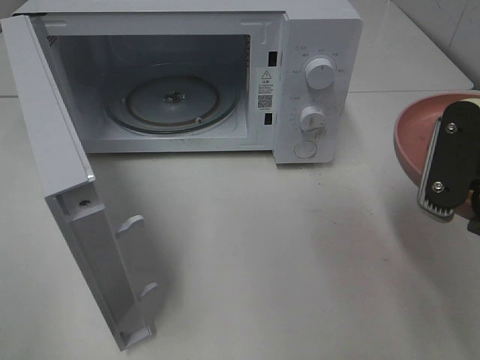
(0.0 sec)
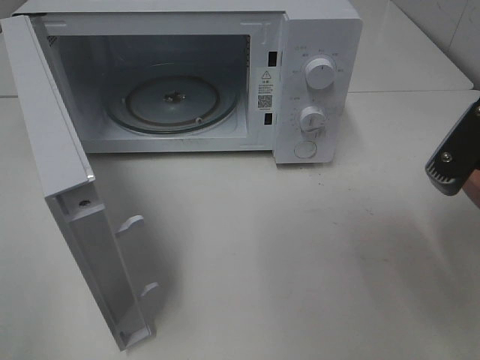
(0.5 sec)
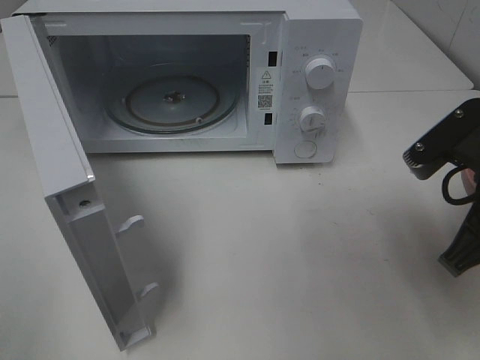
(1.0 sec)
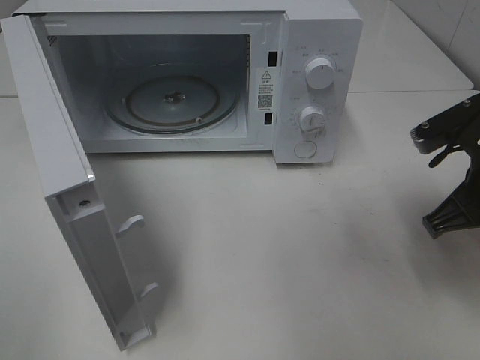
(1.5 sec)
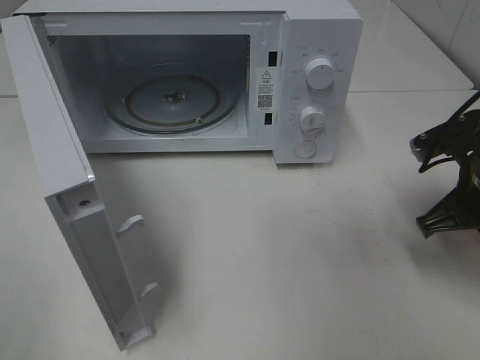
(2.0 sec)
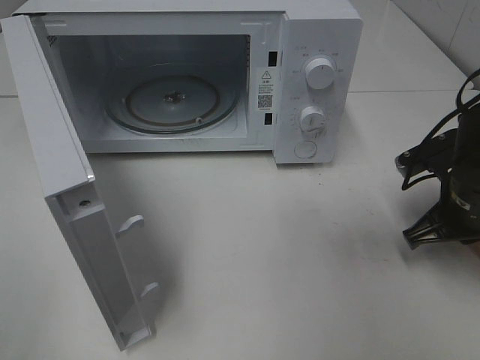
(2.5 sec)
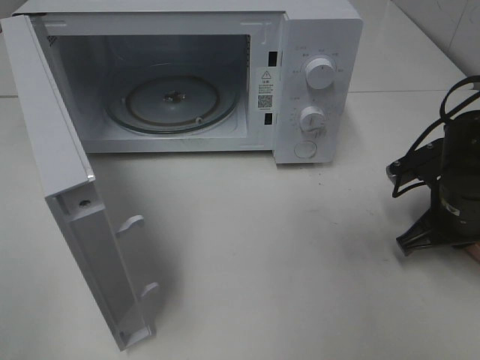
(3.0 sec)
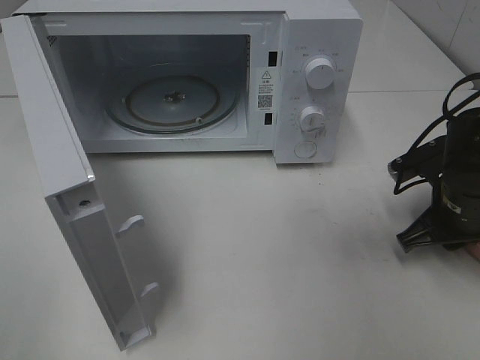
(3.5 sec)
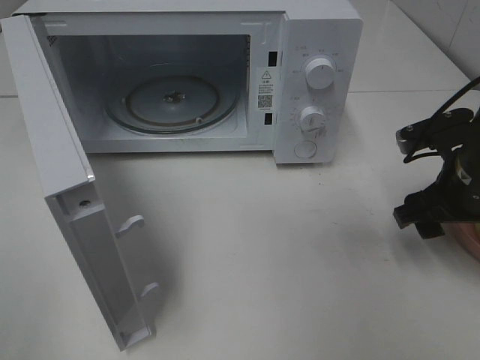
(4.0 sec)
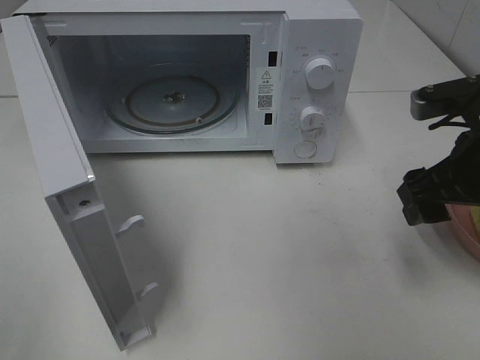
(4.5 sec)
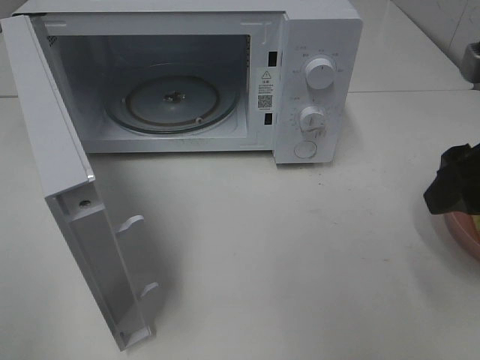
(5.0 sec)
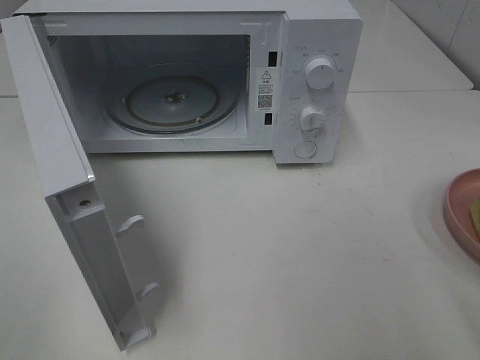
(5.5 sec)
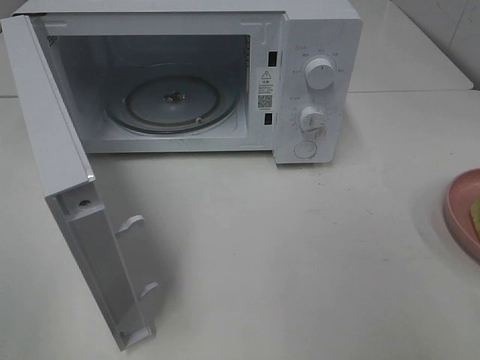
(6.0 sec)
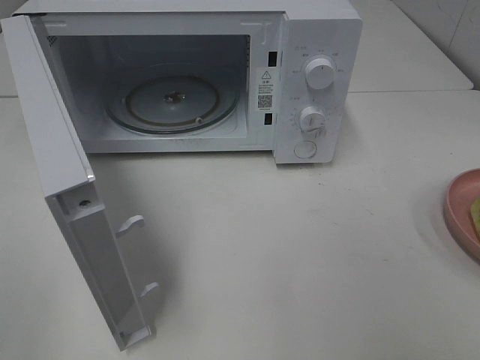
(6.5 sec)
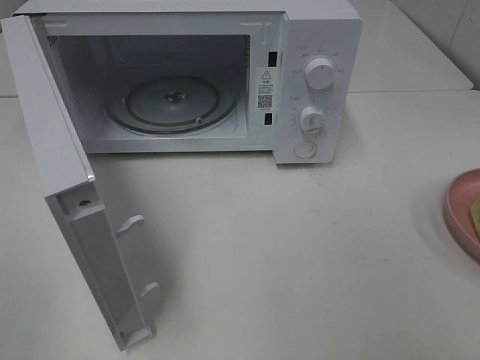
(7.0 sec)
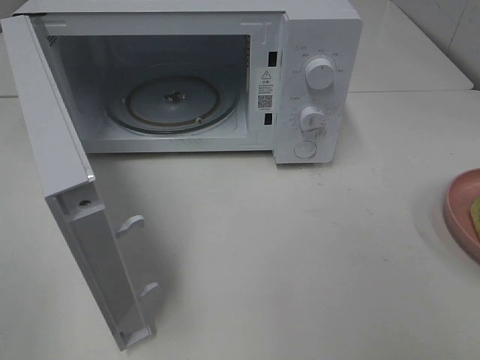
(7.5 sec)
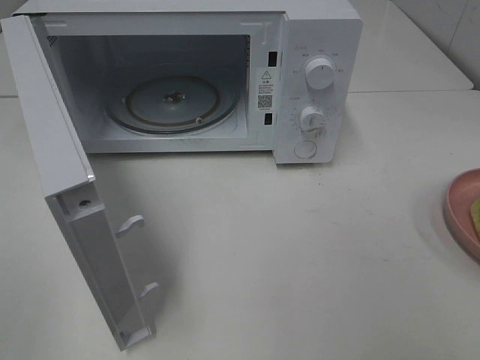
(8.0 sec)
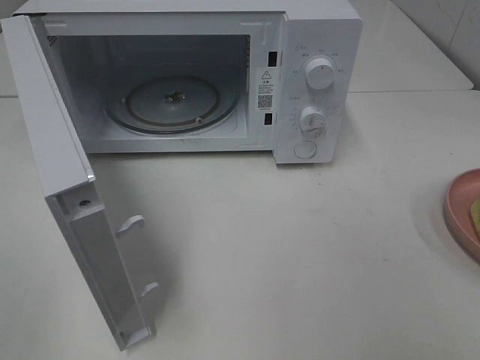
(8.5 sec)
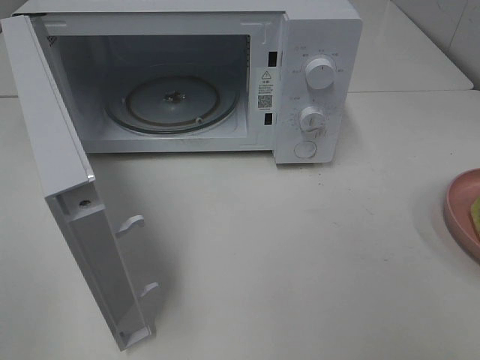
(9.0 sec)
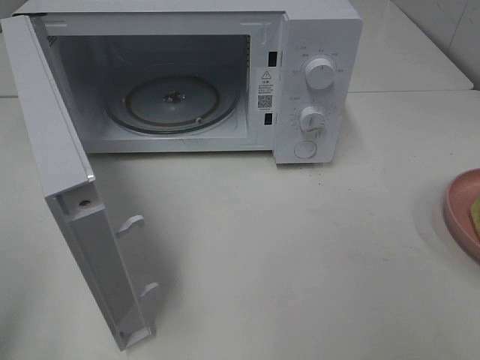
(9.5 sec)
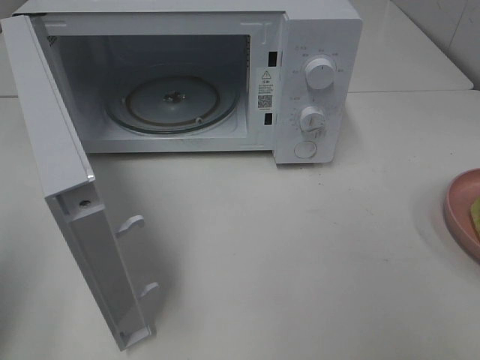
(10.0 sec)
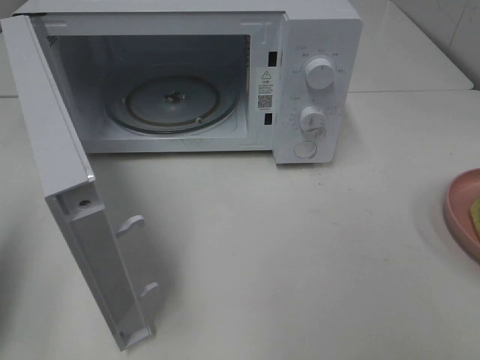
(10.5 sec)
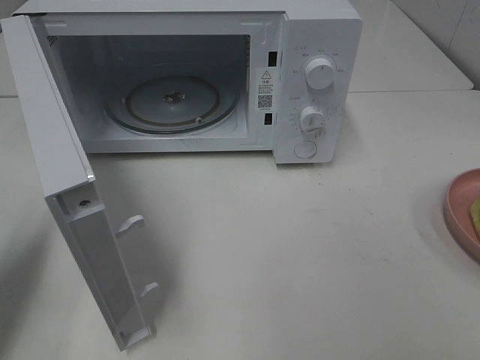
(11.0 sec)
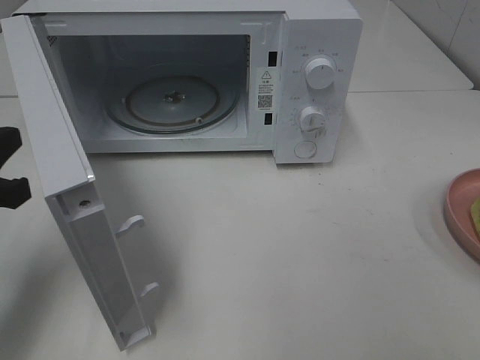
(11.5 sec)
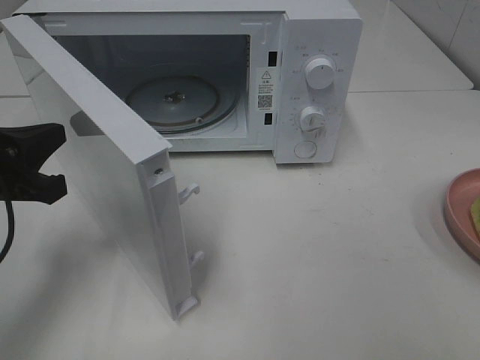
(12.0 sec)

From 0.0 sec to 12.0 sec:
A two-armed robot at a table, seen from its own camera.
Task of the whole recording: Heat Sandwich.
Step, from 0.0 sec to 4.5 sec: Right hand: place the plate on the table.
From 0.0 sec to 2.0 sec: The right gripper travels forward and downward by approximately 15 cm.
From 2.0 sec to 4.0 sec: The right gripper opens.
From 4.0 sec to 6.0 sec: The right gripper moves backward and upward, approximately 25 cm.
From 10.0 sec to 12.0 sec: The left gripper shifts approximately 15 cm forward, downward and to the right.

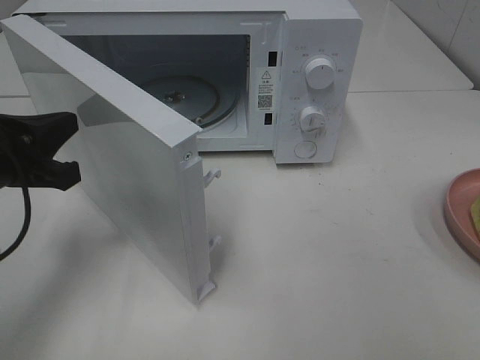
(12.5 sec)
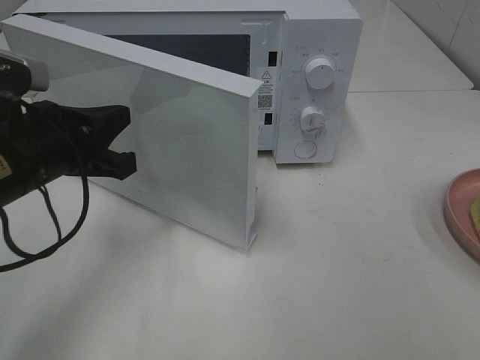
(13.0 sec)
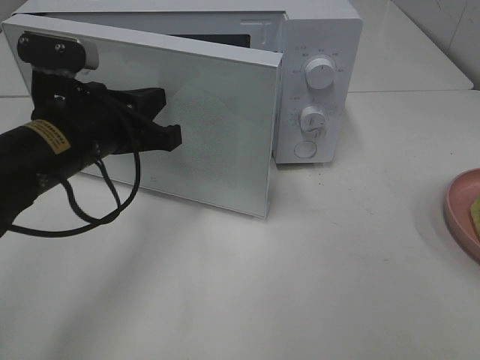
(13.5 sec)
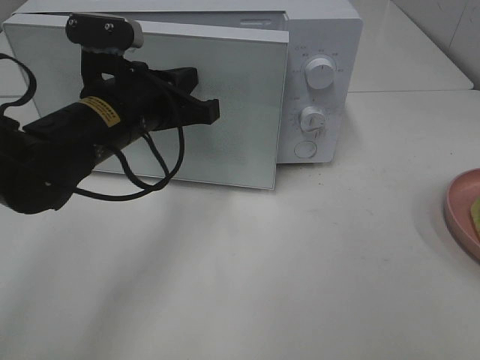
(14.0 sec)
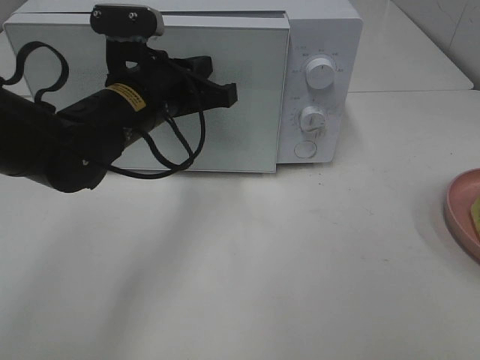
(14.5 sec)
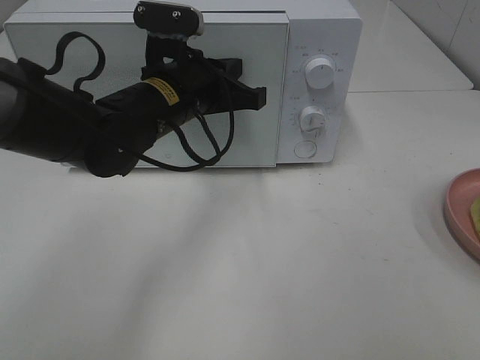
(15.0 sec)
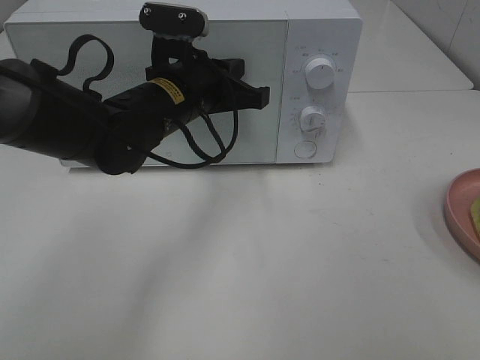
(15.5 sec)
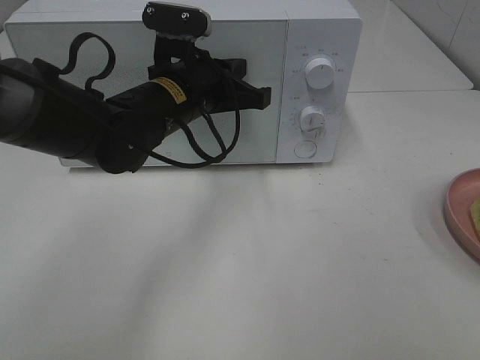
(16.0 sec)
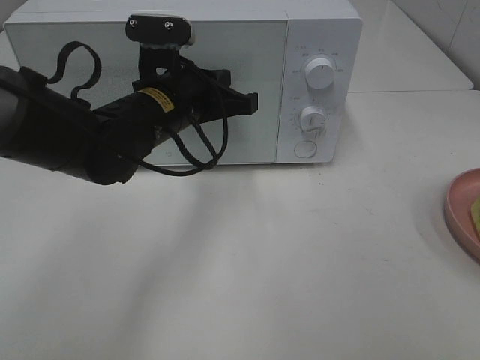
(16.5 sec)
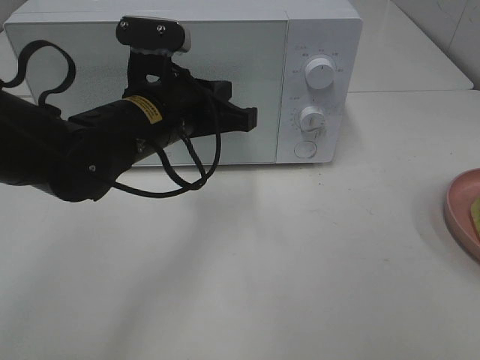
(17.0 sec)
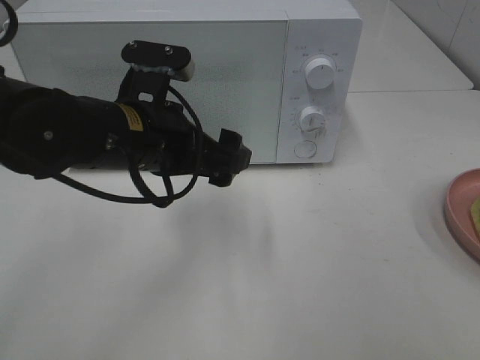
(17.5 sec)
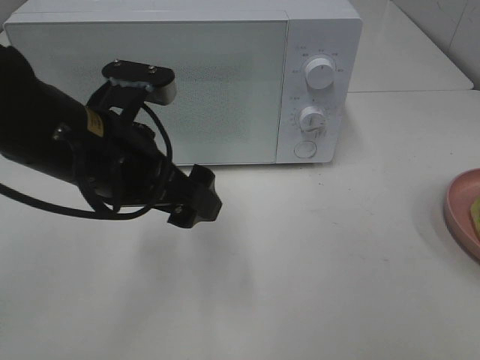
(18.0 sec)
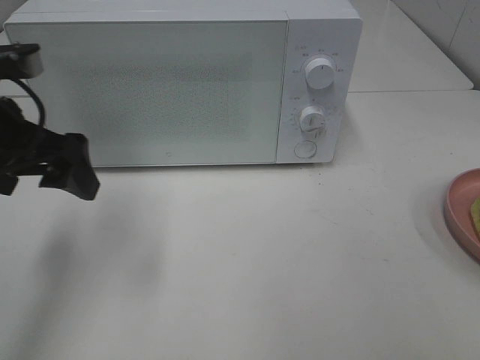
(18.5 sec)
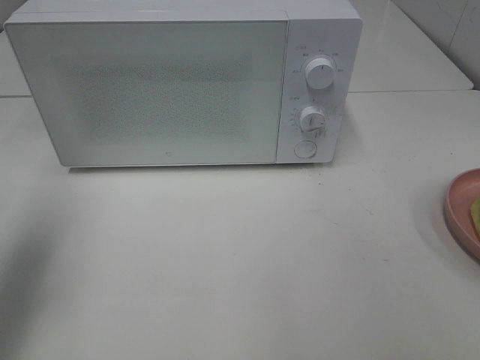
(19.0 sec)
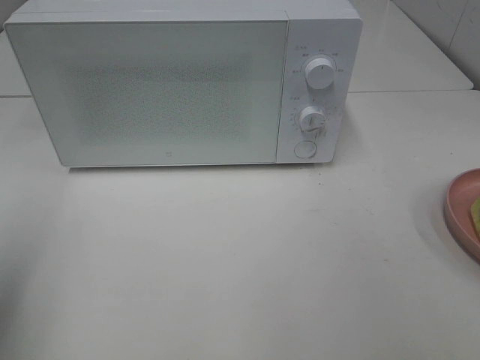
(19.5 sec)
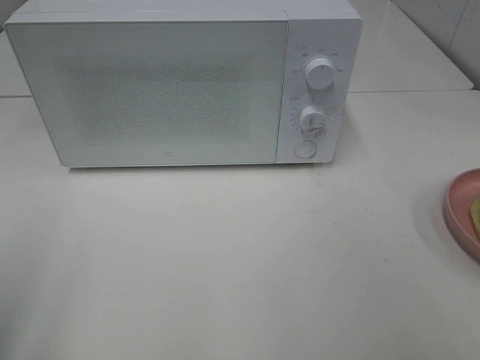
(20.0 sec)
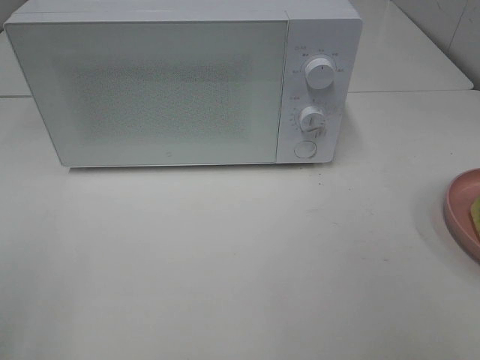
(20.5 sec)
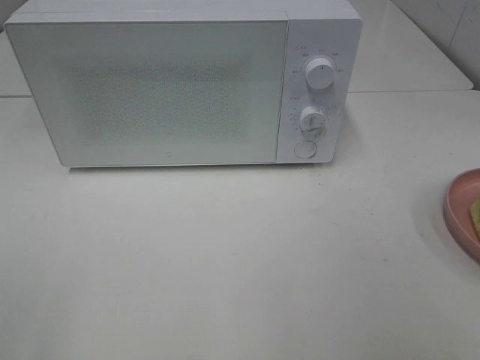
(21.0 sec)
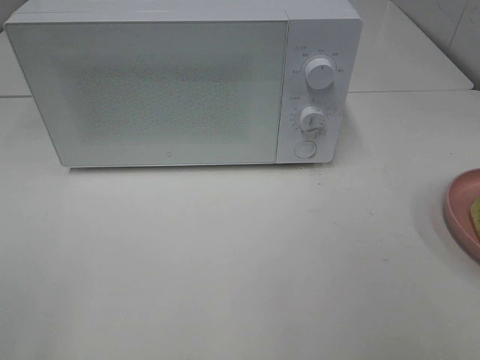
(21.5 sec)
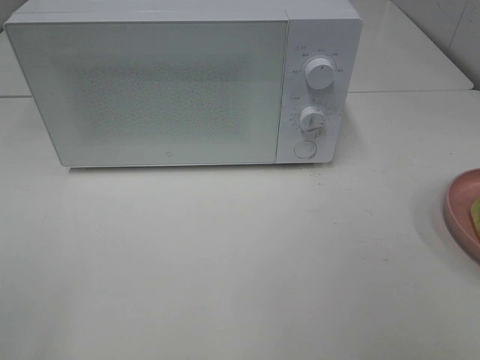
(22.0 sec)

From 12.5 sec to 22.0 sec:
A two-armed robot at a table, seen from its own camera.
Task of the whole recording: Heat Sandwich.
Step, from 12.5 sec to 15.5 sec: Left hand: close the microwave door.
From 12.5 sec to 14.5 sec: The left gripper shifts about 15 cm to the right and forward.
From 14.5 sec to 16.5 sec: The grippers move only a little.
From 16.5 sec to 18.0 sec: The left gripper moves backward, approximately 10 cm, and opens.
From 18.0 sec to 20.0 sec: The left gripper travels to the left and backward by roughly 25 cm.

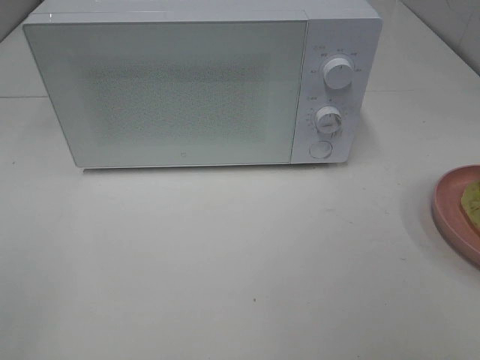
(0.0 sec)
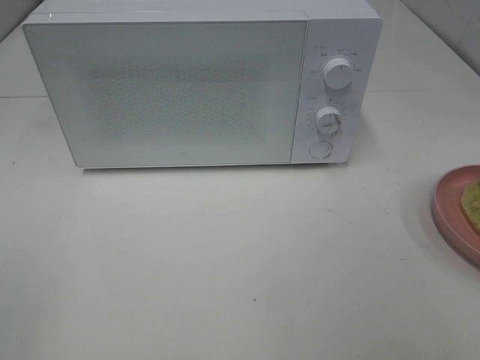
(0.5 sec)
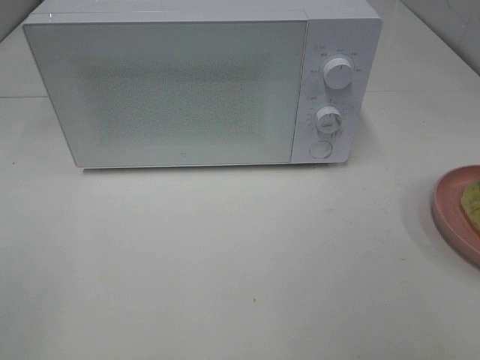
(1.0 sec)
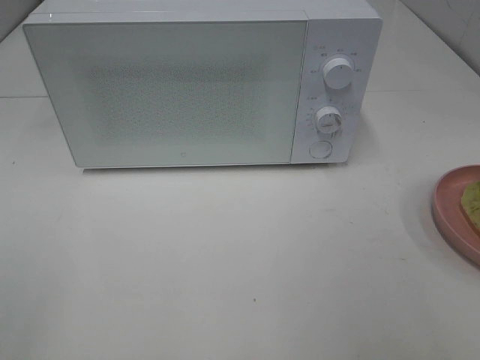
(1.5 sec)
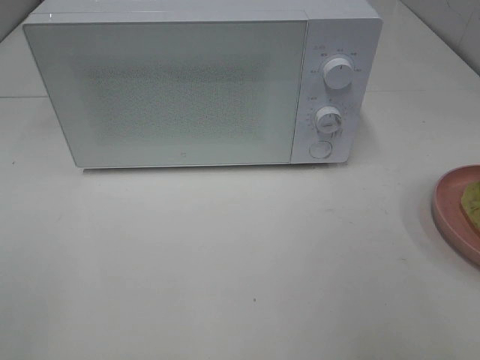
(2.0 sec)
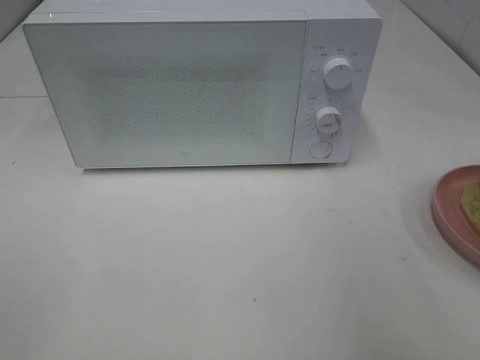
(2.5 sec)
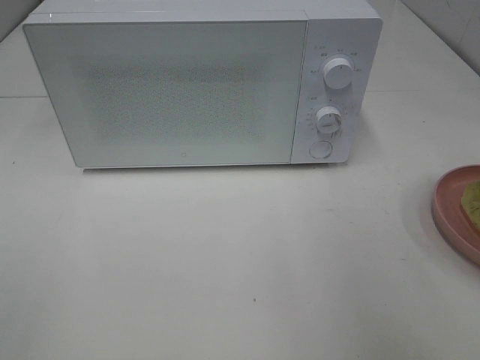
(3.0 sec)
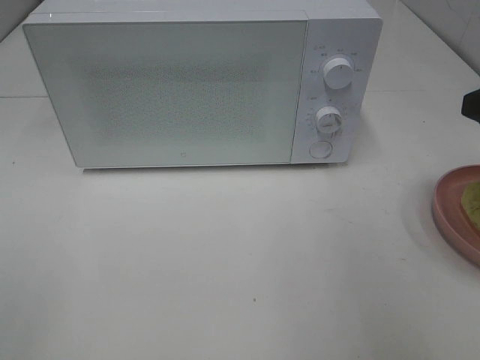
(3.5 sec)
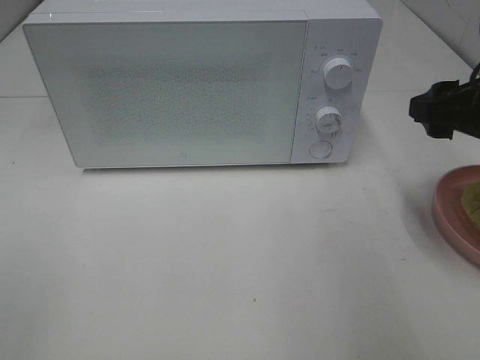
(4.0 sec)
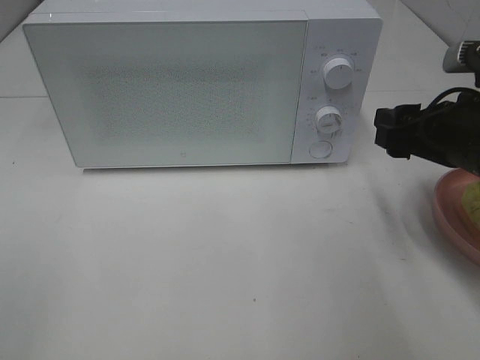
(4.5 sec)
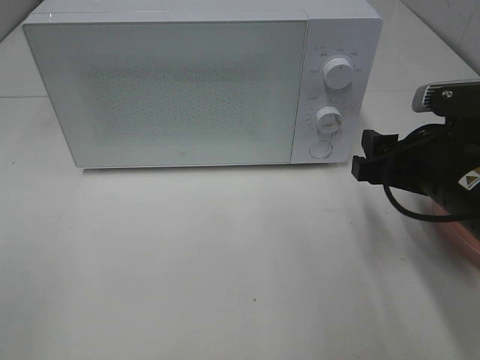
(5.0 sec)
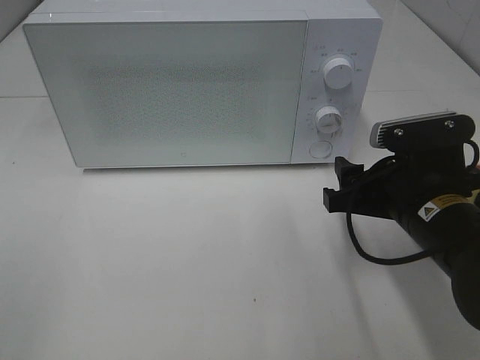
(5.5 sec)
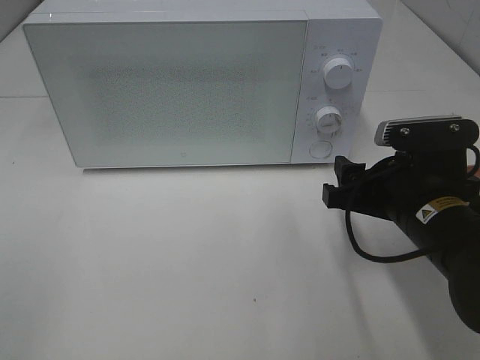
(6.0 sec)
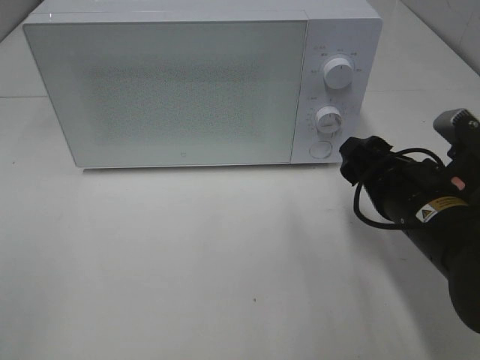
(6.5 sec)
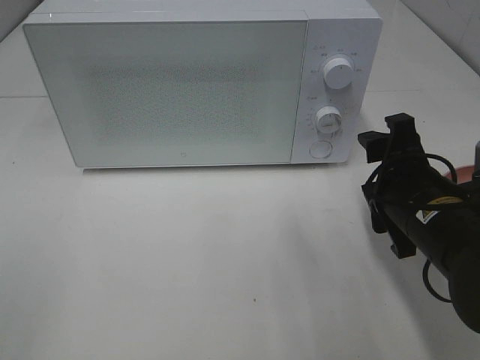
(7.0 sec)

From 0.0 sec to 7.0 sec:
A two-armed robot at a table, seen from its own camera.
Task of the whole recording: Heat Sandwich.
From 3.5 sec to 5.0 sec: The right gripper moves downward and to the left, some 10 cm.
